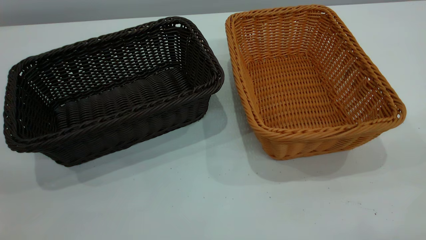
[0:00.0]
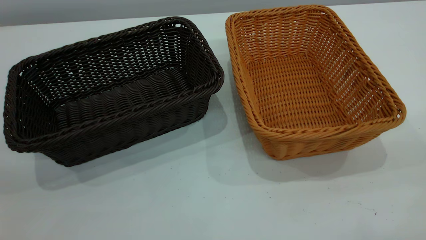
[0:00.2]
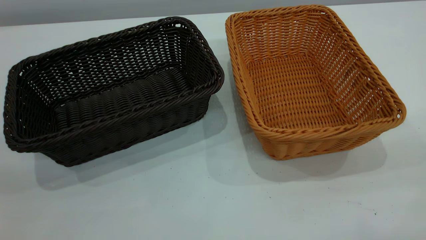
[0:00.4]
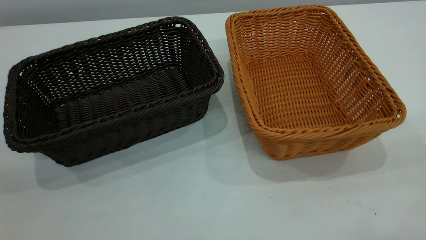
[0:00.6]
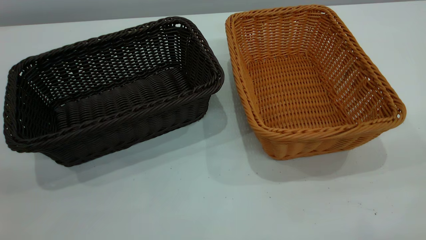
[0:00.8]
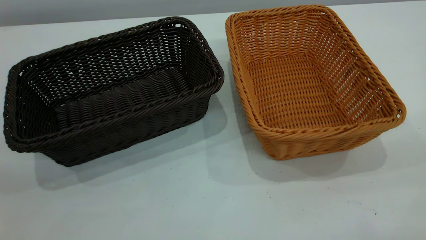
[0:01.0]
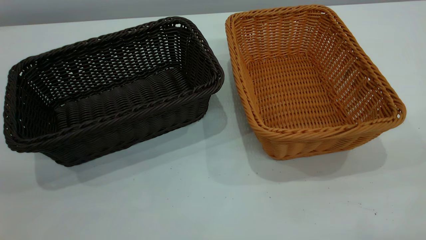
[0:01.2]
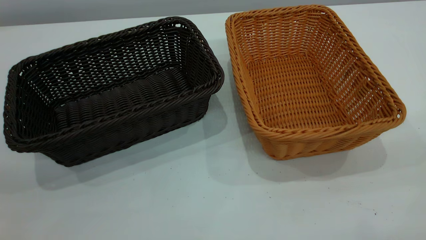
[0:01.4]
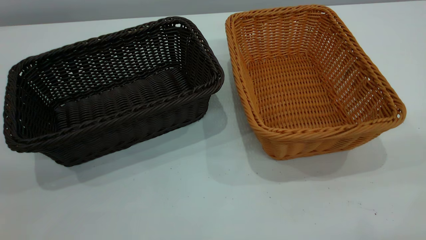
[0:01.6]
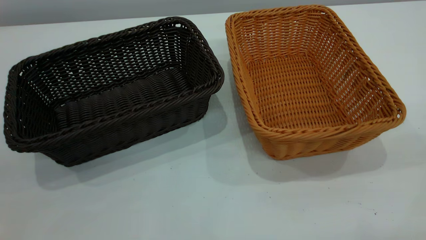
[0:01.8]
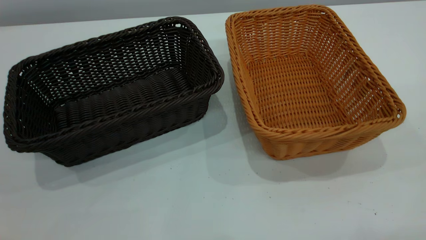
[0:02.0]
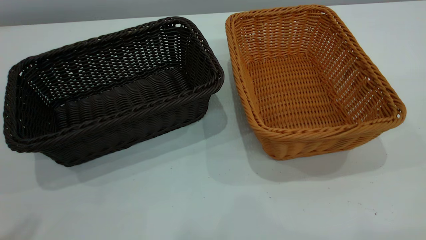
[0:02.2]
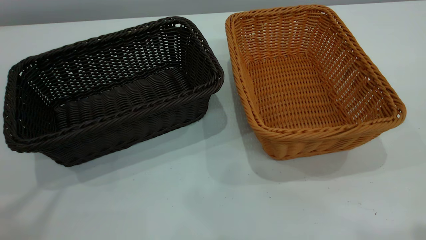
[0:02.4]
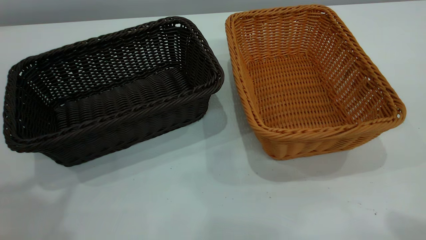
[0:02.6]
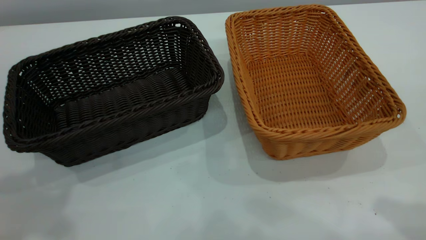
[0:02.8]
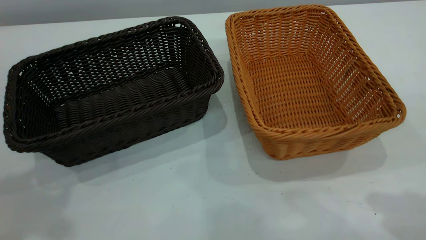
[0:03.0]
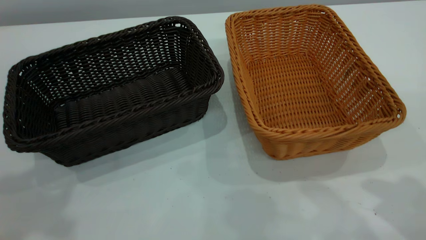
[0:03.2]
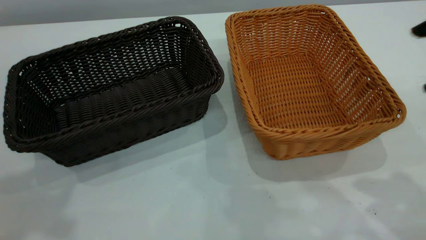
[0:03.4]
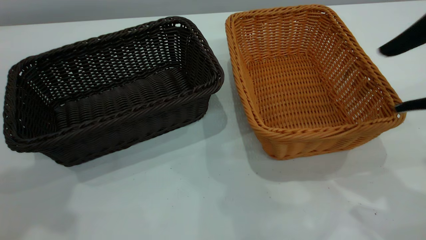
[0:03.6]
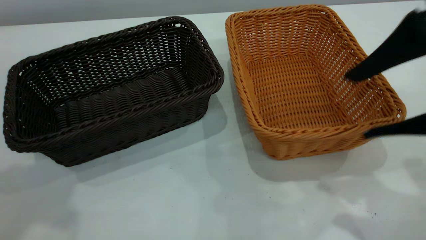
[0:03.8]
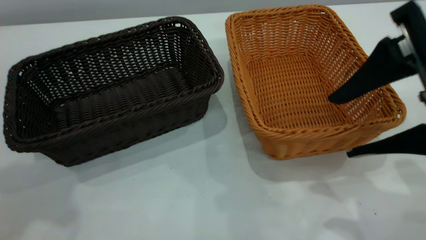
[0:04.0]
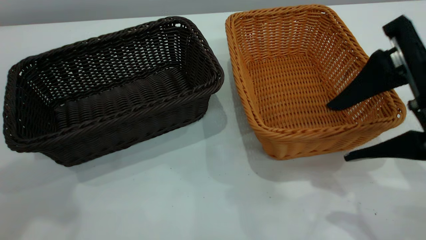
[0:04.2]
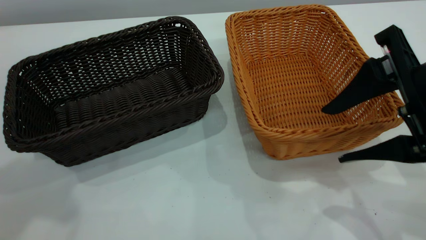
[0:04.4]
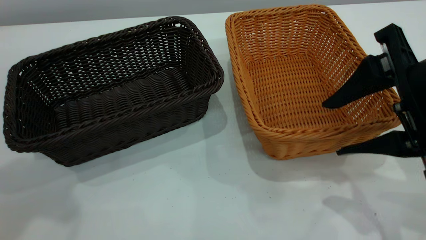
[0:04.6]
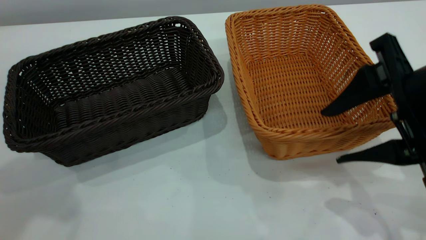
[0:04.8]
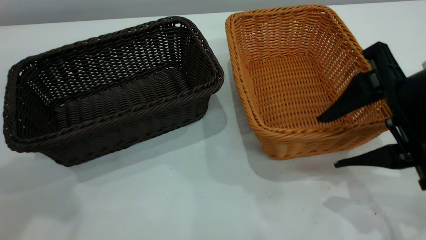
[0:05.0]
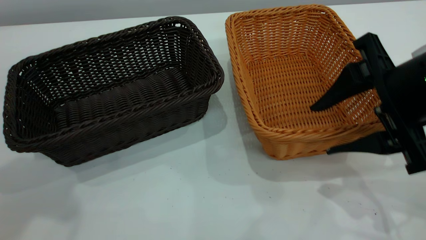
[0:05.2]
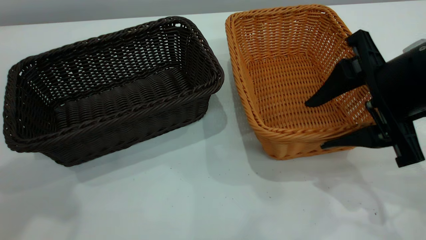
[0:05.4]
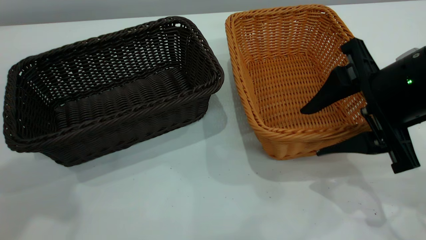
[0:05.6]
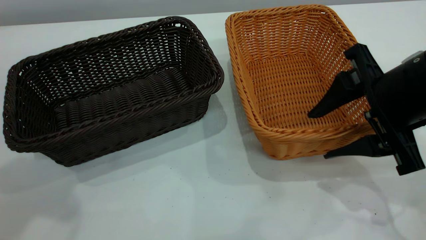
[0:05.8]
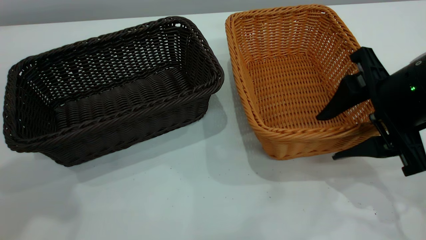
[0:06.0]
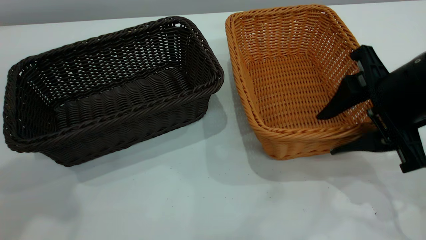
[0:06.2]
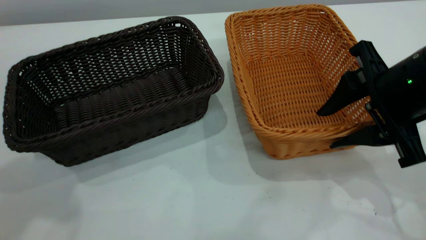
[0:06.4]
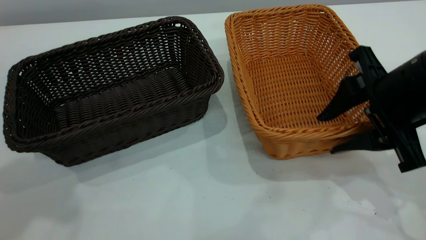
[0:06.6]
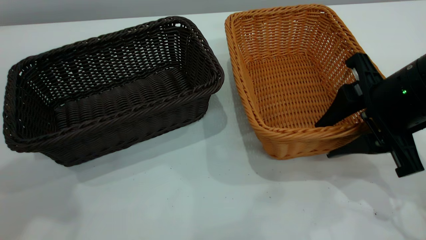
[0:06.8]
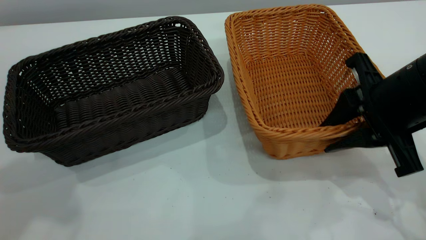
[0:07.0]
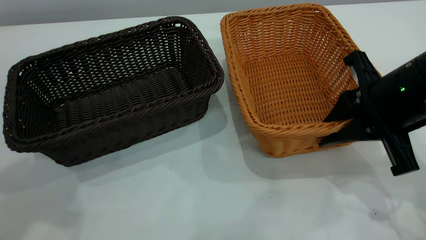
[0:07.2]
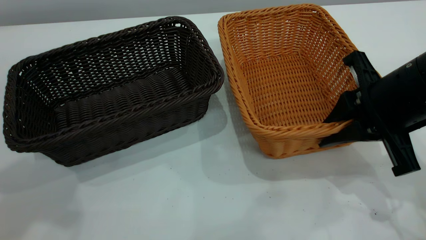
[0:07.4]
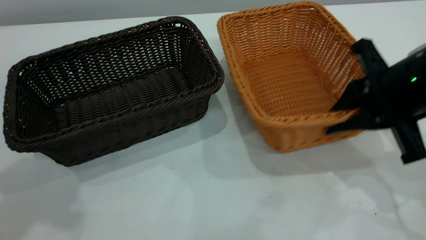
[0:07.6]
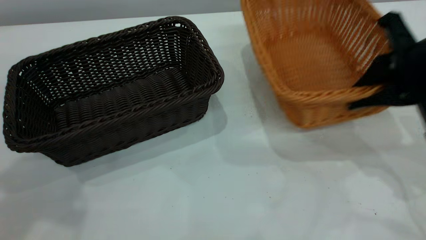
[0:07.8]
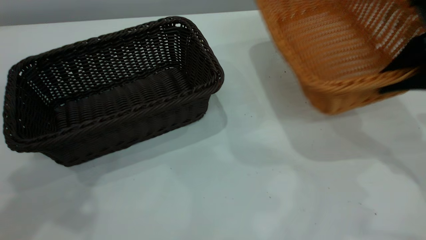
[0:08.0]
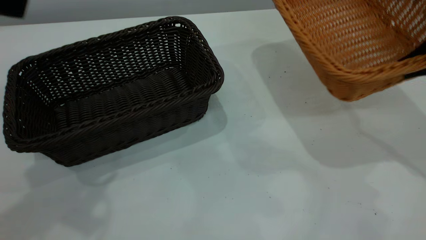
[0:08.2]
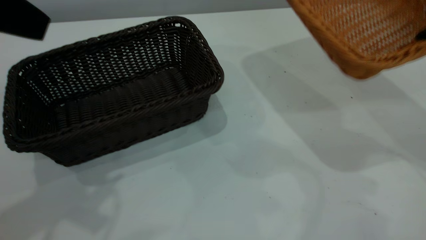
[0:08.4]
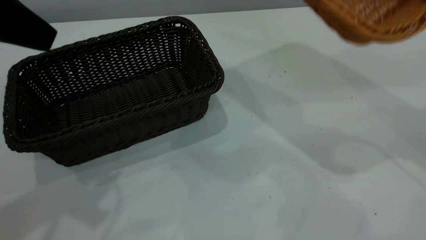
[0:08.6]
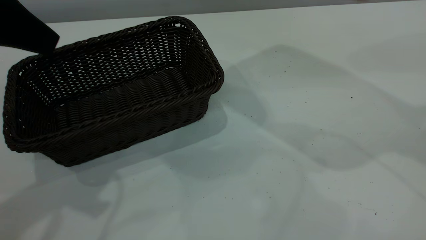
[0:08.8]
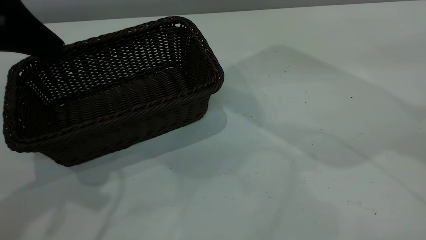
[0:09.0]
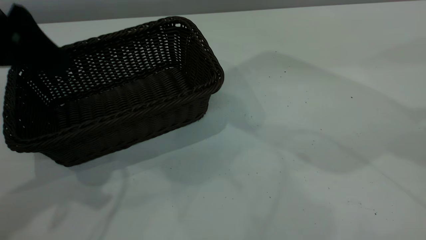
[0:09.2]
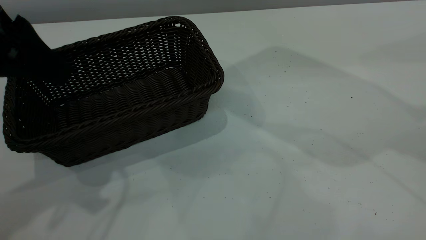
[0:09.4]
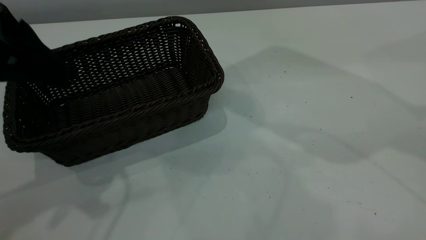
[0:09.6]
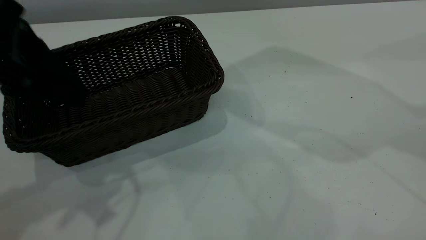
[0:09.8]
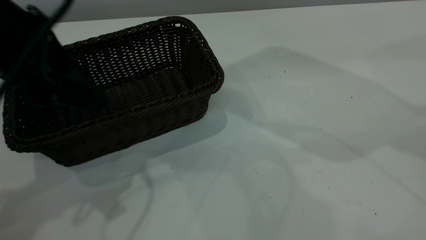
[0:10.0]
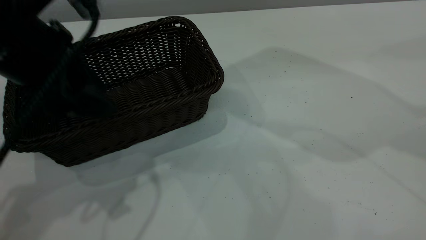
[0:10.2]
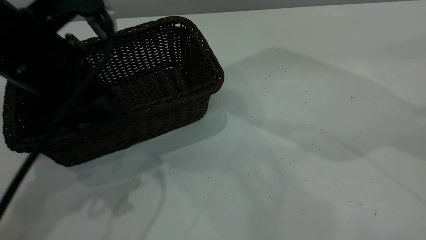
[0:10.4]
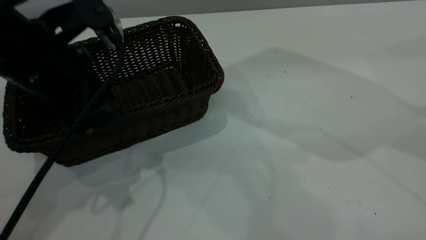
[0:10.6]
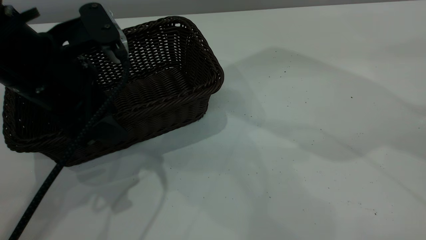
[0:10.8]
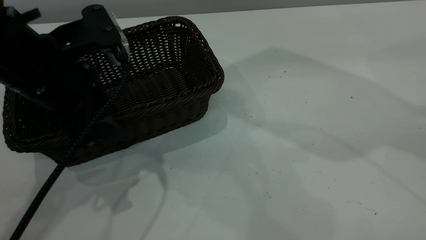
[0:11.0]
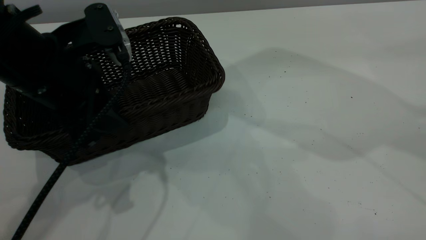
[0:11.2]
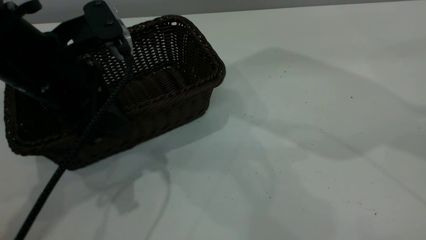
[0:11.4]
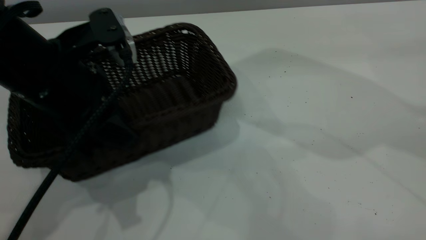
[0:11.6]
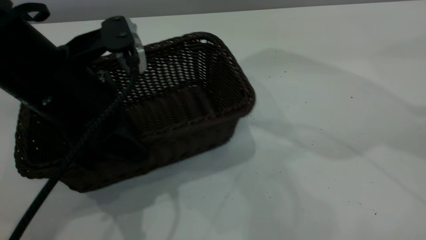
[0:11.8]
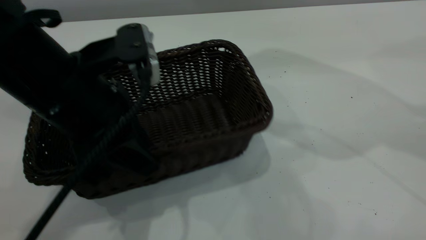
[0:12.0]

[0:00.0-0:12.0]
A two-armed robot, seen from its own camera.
Task of the whole recording: the left gripper grasp the black basket and place it in the center of the table, the right gripper grasp the brown basket and place it inside the black one.
Step, 0:00.0 to 0:07.8: Pick up the light basket with the right gripper.
0:03.0 to 0:04.4: The right gripper heads downward and forward, covering about 10 cm.
0:04.4 to 0:06.0: The right gripper ends up roughly 5 cm from where it was.
0:06.0 to 0:07.6: The right gripper closes up.
0:07.6 to 0:09.0: The right gripper heads upward, covering roughly 20 cm; the left gripper heads downward, covering some 10 cm.
0:09.0 to 0:10.4: The left gripper shifts about 10 cm downward and to the right.
0:10.4 to 0:12.0: The left gripper ends up approximately 5 cm from where it was, and closes its fingers.

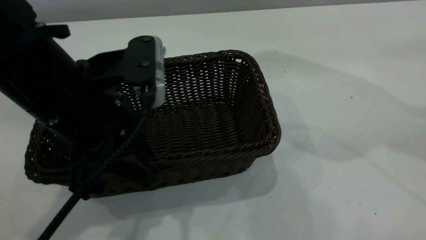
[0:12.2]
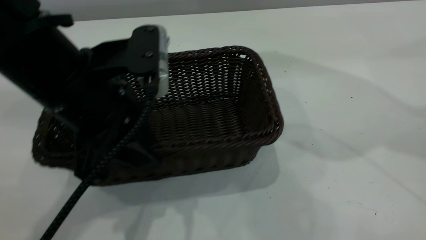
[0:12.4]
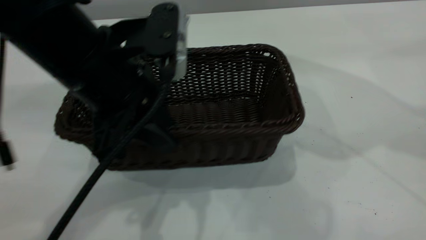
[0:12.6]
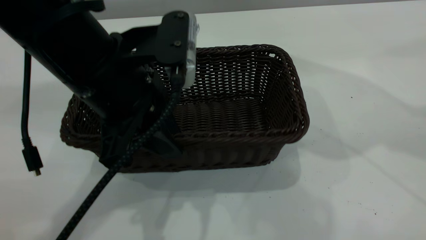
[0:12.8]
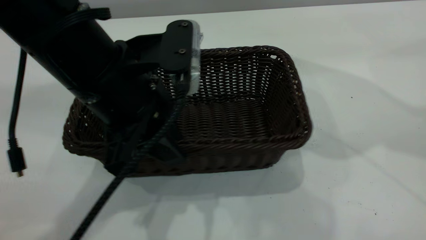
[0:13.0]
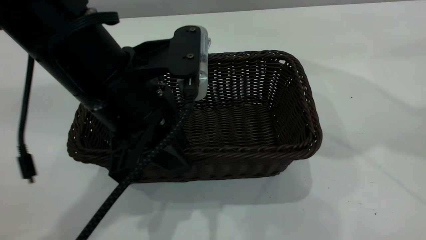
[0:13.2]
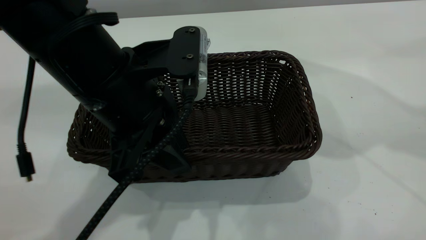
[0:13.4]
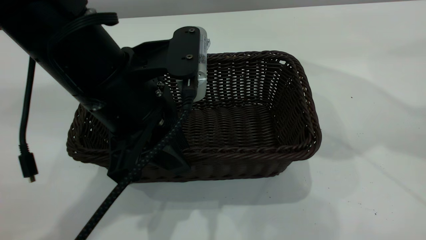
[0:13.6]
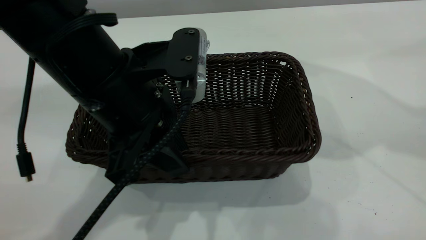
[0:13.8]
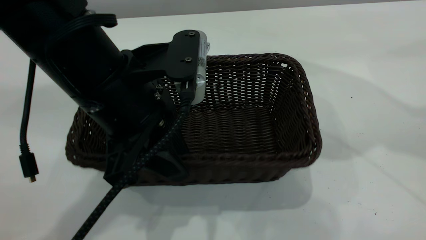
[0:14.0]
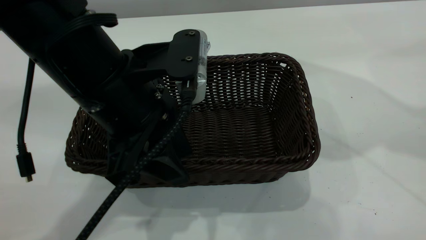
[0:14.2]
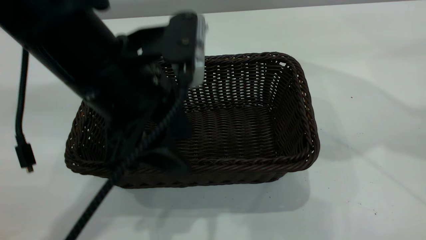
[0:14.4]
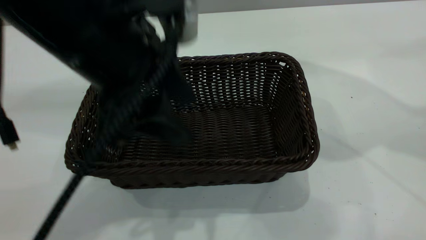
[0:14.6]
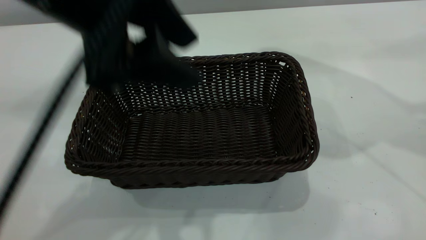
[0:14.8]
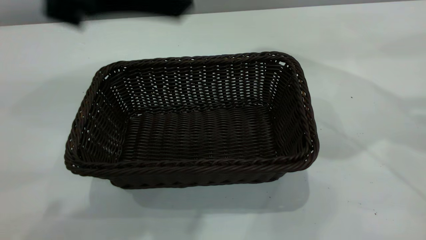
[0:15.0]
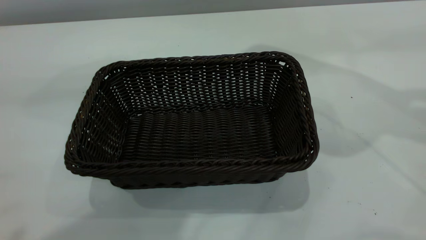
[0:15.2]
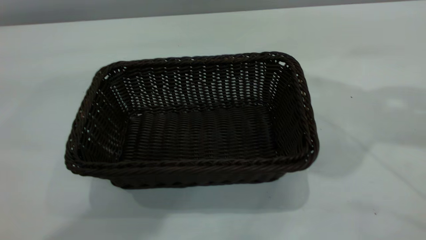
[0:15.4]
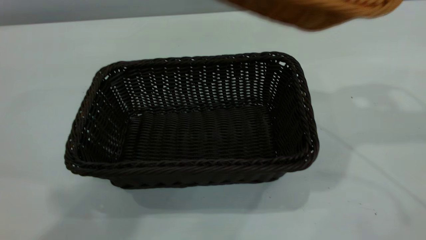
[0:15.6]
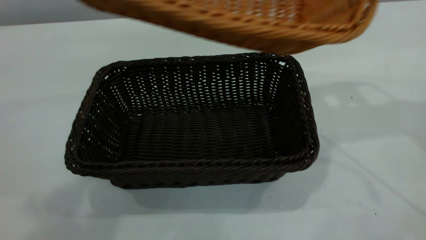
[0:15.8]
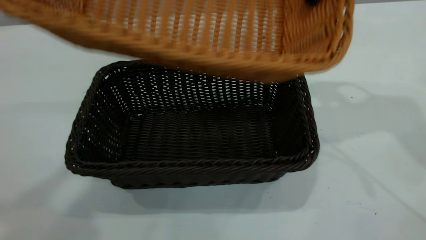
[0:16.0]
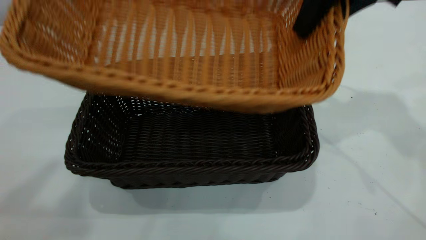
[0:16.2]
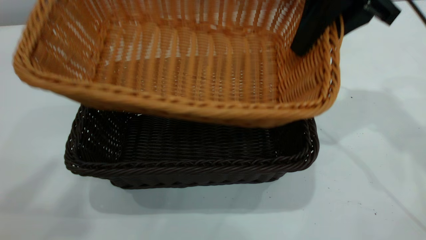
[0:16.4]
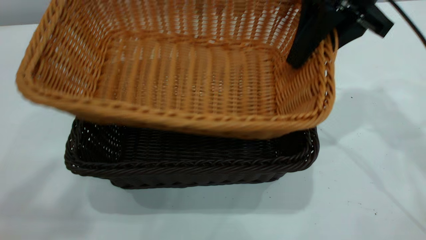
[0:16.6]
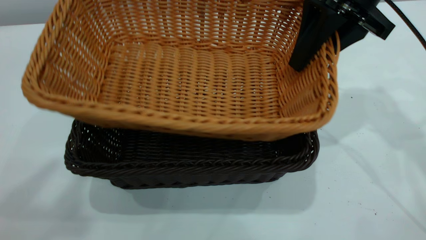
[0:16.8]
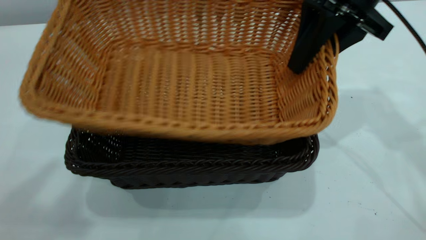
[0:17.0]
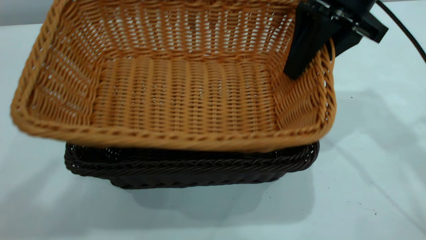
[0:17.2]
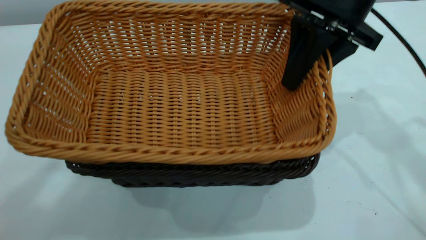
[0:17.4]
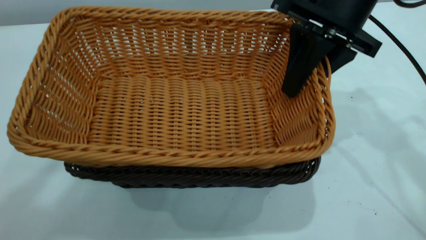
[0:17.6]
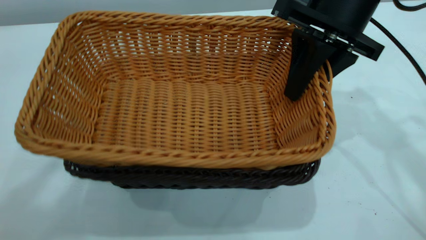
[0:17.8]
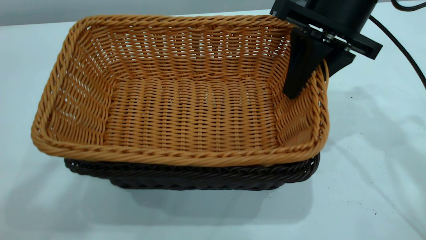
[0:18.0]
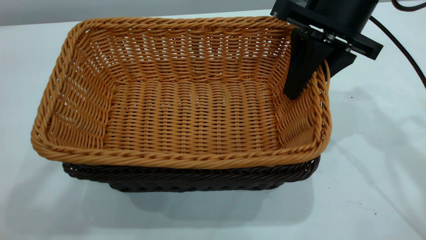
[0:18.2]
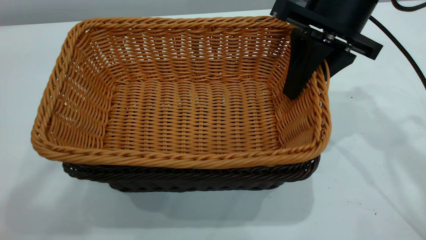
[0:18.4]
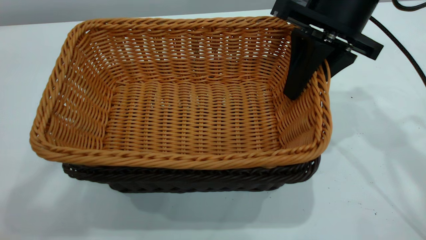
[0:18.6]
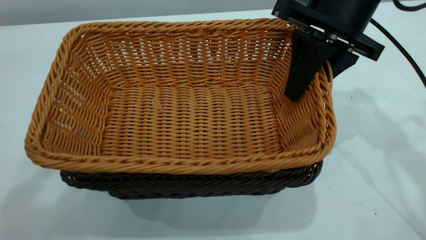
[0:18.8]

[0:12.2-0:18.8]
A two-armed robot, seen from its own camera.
Task of the whole recording: the left gripper grasp the black basket and place it in the center of the table, the right gripper grasp the brown basket and place it inside the black one.
Step, 0:12.2 to 0:14.6: Move the dark basket to the center of view.
0:13.8 to 0:15.4: The left gripper travels upward by some 25 cm, and opens up. The right gripper changes place by some 5 cm.
0:15.4 to 0:17.2: The left gripper travels to the left and upward by approximately 10 cm. Meanwhile the right gripper shifts about 15 cm downward and to the left.
